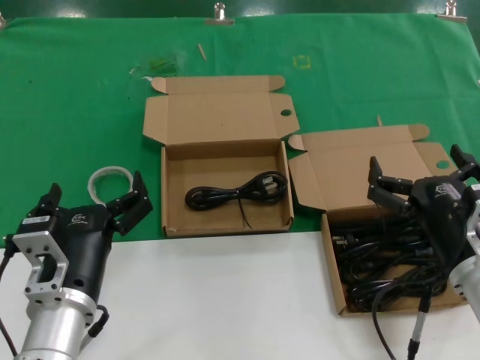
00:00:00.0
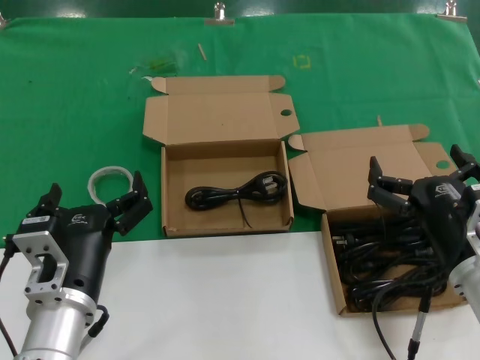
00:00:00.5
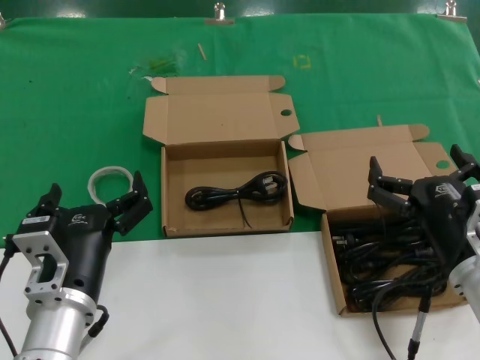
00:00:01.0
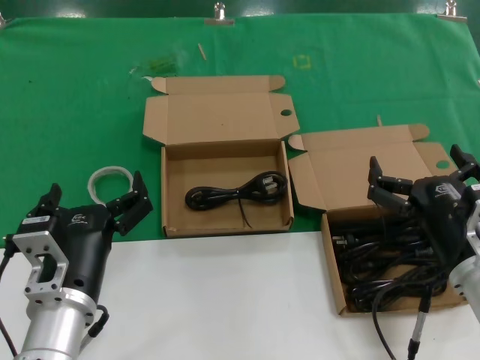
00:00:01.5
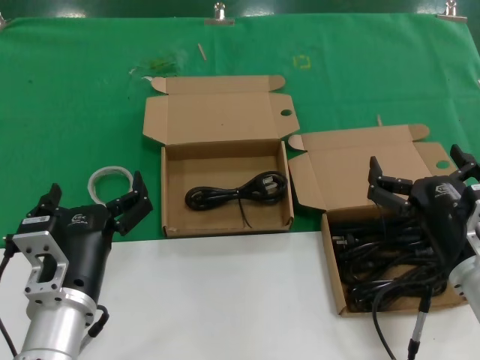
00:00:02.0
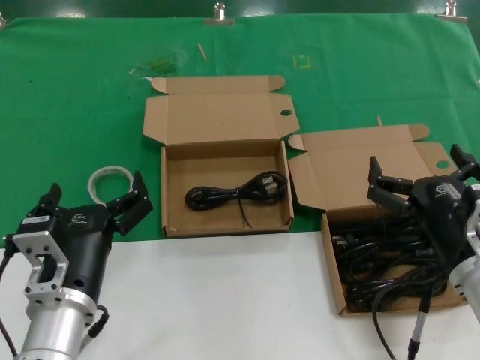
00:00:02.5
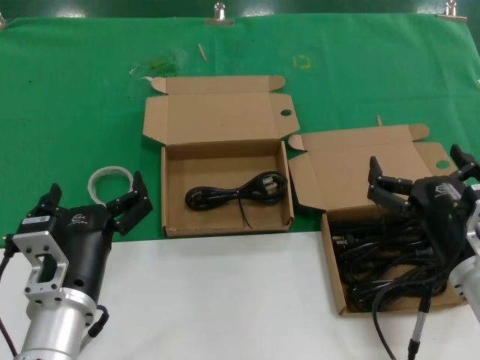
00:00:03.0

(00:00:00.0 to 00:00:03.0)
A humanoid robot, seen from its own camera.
Task of the whole recording: take the parts from the box containing them and put them into an empty box.
00:00:00.0 - 00:00:03.0: Both hands stay put.

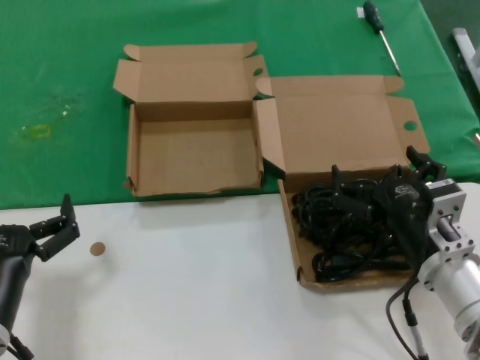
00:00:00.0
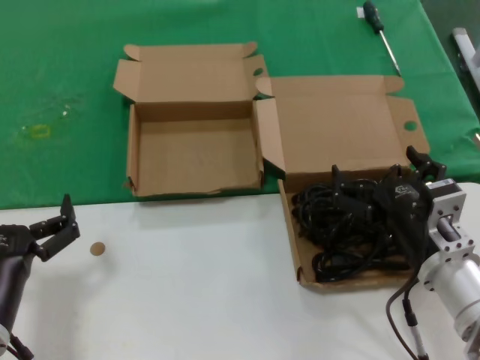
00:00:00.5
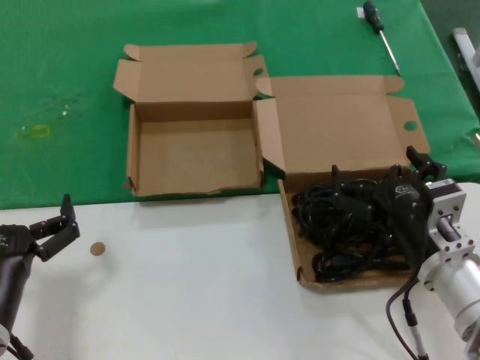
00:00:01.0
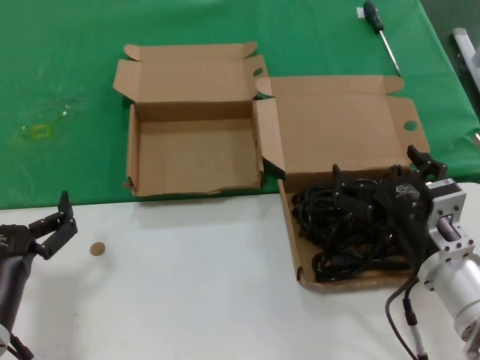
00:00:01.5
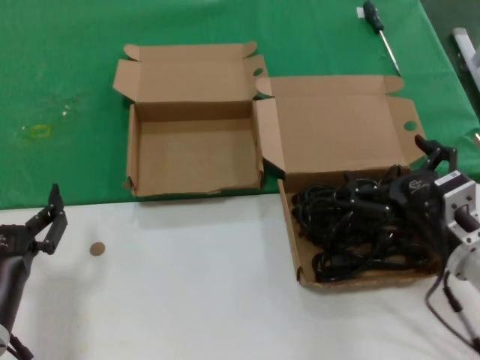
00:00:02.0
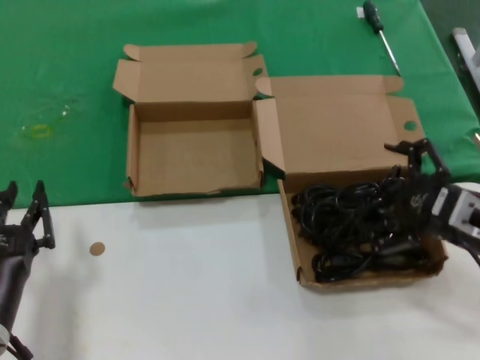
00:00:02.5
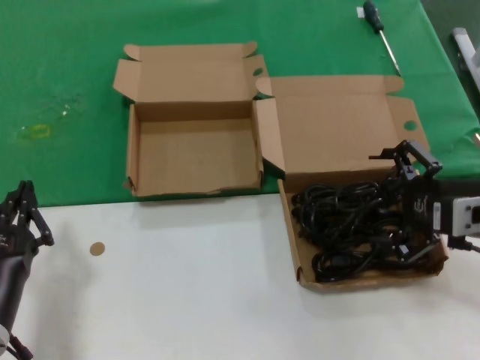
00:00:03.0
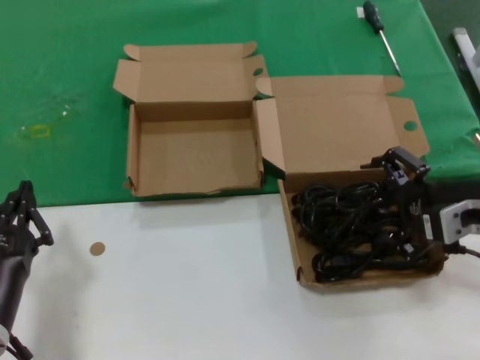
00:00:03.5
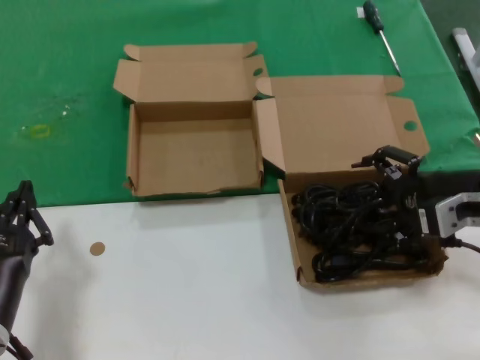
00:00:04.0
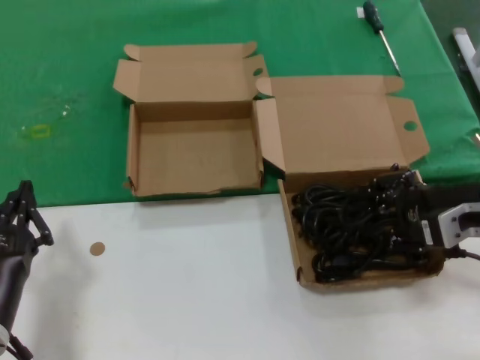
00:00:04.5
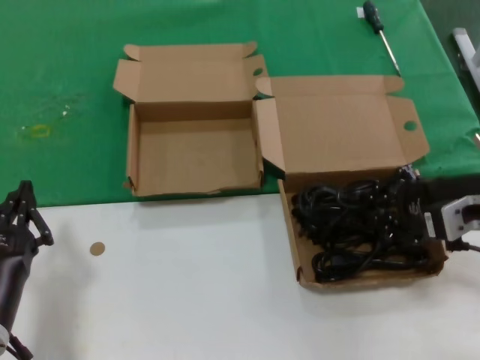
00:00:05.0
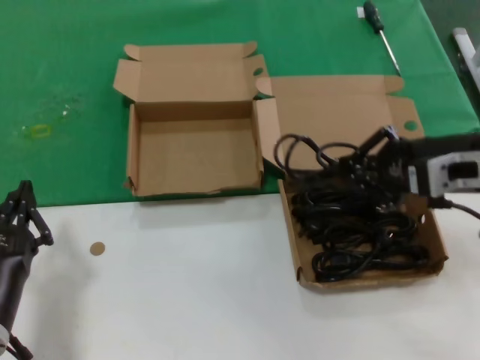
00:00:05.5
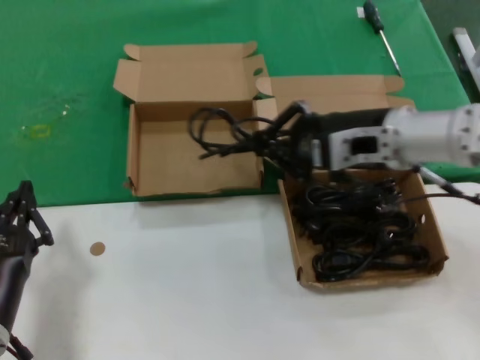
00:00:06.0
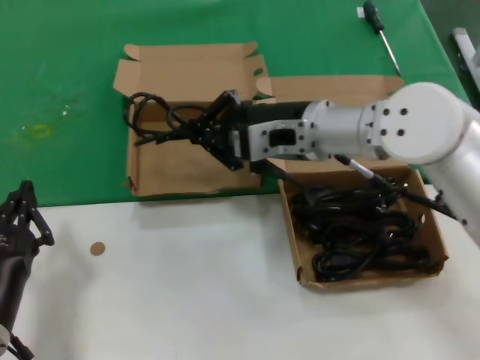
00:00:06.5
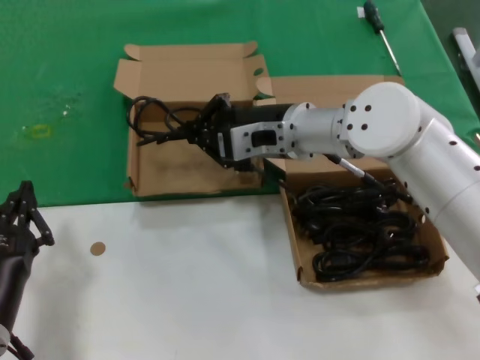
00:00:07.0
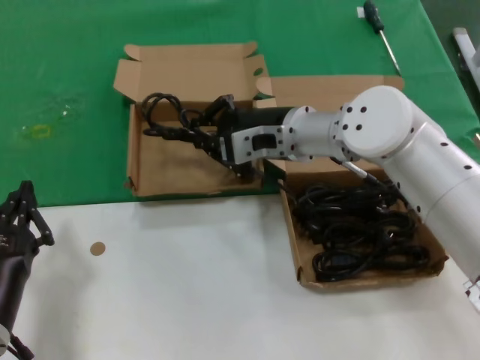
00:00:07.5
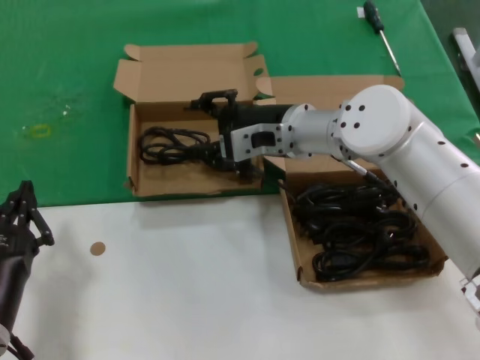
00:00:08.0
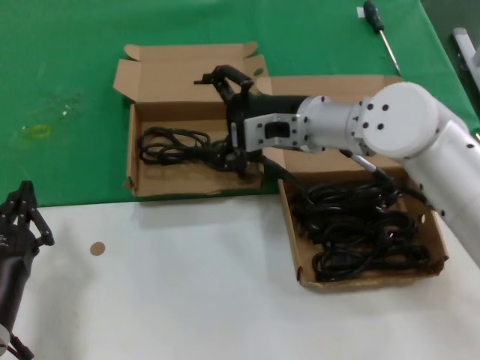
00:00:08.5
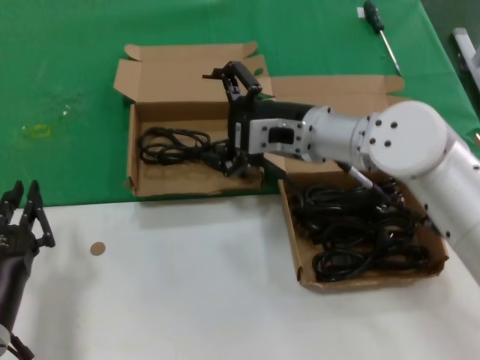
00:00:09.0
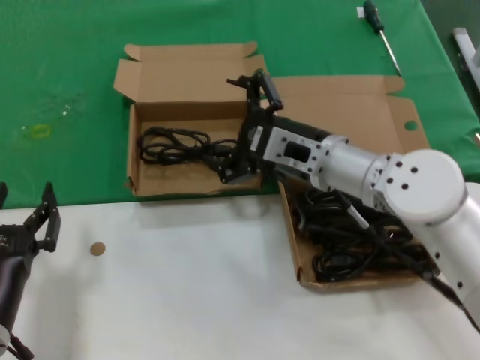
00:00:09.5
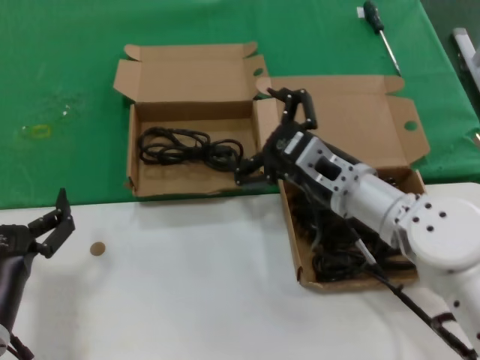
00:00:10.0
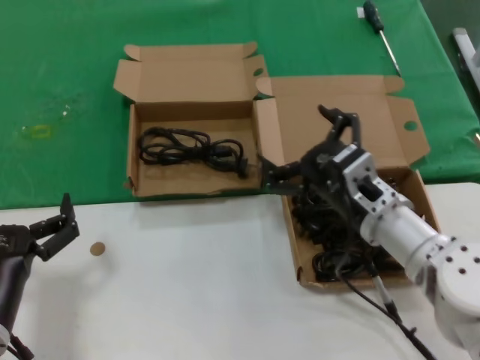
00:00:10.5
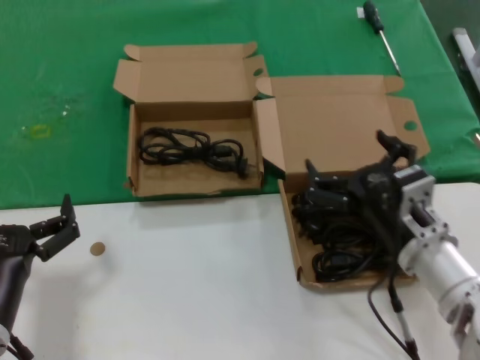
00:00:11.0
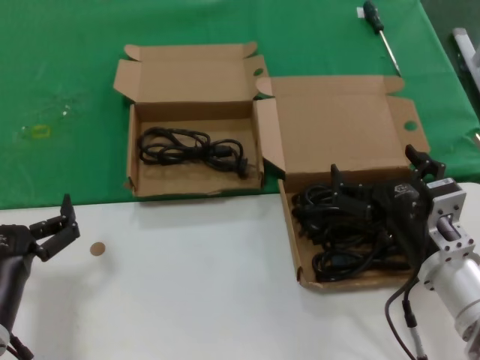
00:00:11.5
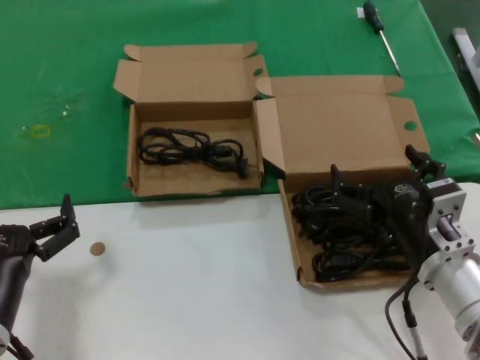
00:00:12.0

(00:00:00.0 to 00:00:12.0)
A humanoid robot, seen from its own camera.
Task of the whole recording: take the parts from the box containing them and put them into an empty box.
Step, 00:00:00.0 - 00:00:04.5: Grasp the data cable.
Step, 00:00:05.0 - 00:00:08.5: Place the data cable in the another box.
00:00:00.0 - 00:00:02.0: The hands make only small movements.
00:00:02.0 - 00:00:04.0: The right hand goes approximately 15 cm upward, to the right and forward.
00:00:04.0 - 00:00:06.0: The right hand shifts approximately 15 cm to the left, upward and forward.
00:00:06.0 - 00:00:08.0: The right hand is displaced to the left and forward by roughly 15 cm.
00:00:08.0 - 00:00:10.0: The right hand goes roughly 10 cm backward and downward.
00:00:10.0 - 00:00:12.0: The right hand shifts about 15 cm backward, to the right and downward.

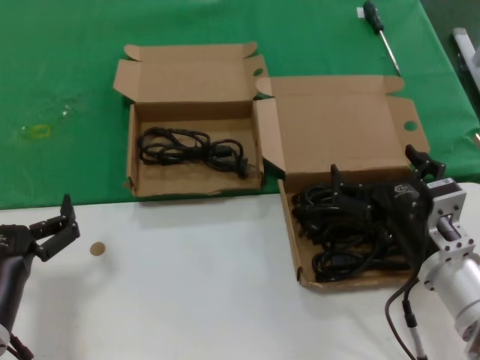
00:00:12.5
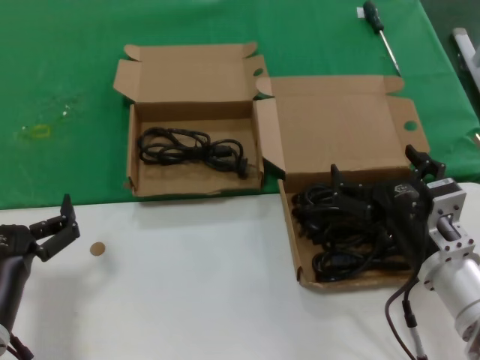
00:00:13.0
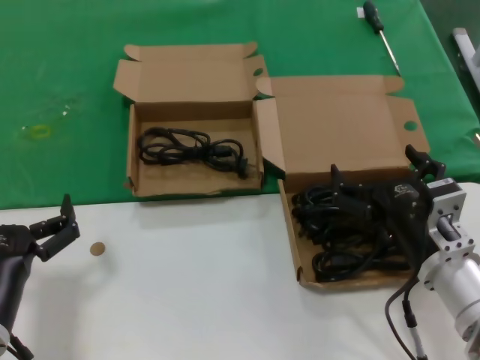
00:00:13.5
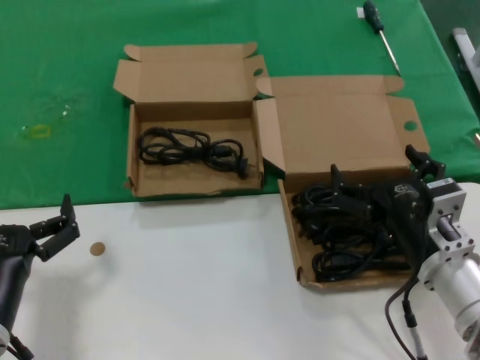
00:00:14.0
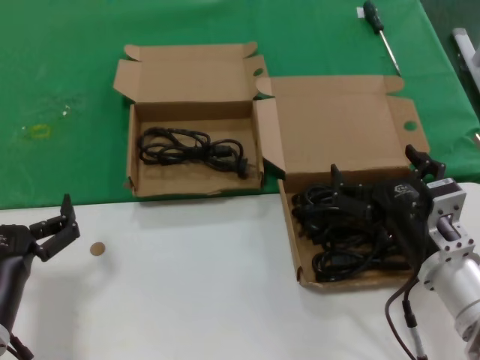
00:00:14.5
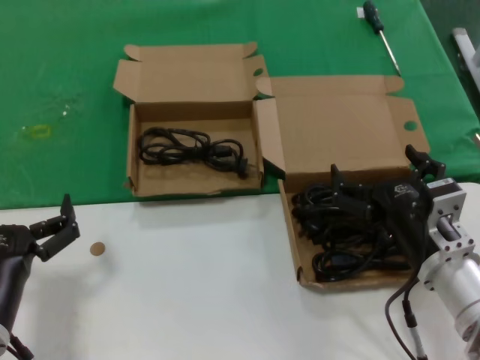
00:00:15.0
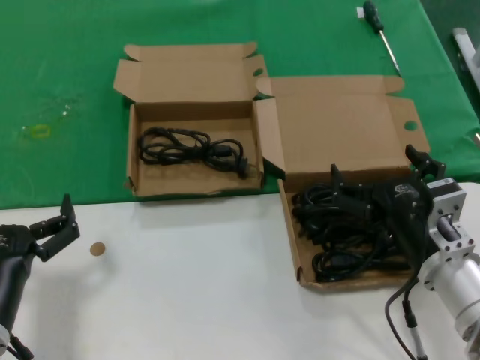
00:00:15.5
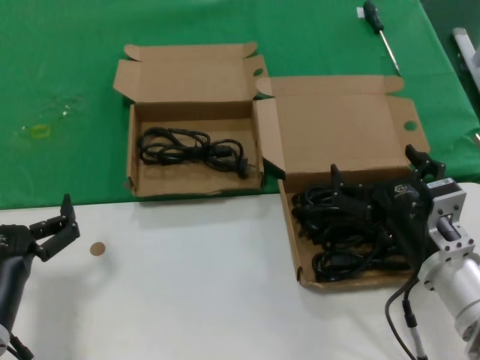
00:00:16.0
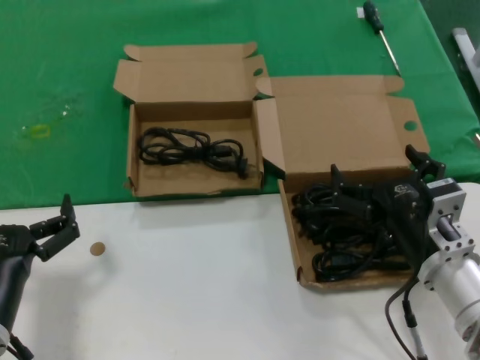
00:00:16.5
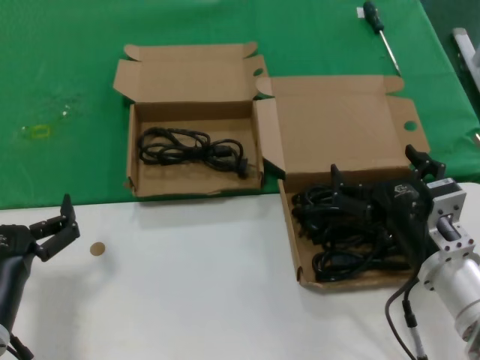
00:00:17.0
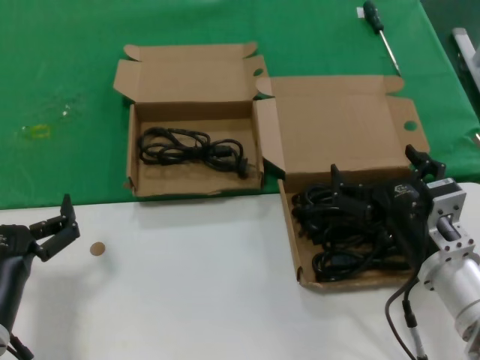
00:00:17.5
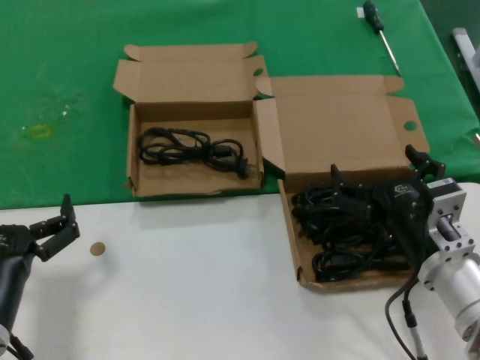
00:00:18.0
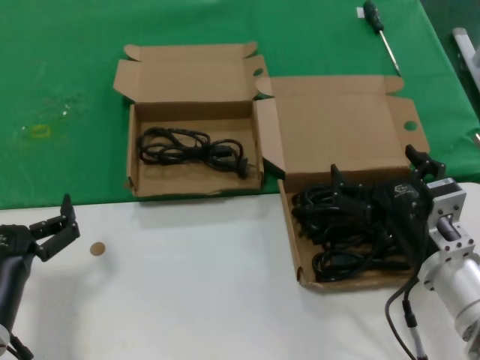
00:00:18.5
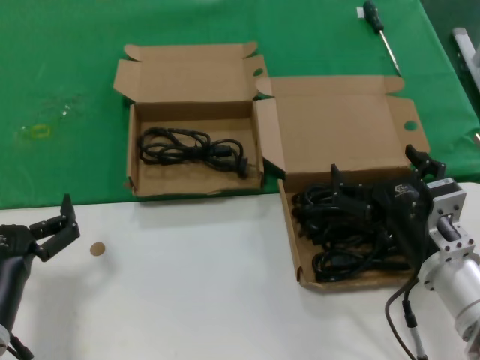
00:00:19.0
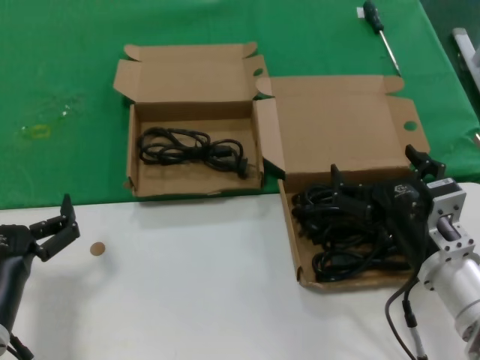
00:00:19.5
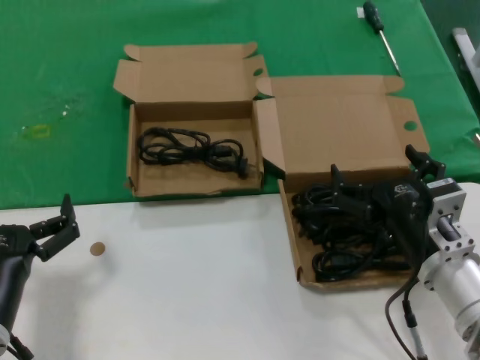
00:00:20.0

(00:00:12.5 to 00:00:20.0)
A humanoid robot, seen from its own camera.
Task of the whole recording: take the parts from the box containing them and put them into an empty box.
00:00:12.5 - 00:00:20.0: Neither hand changes place.
